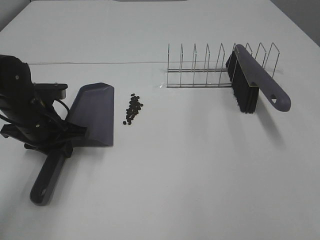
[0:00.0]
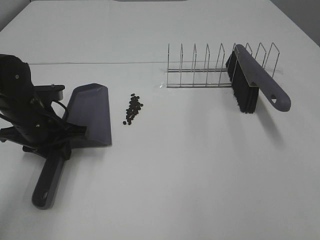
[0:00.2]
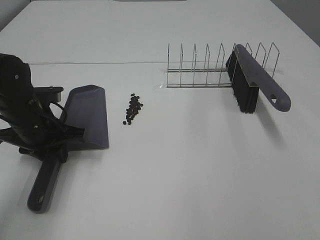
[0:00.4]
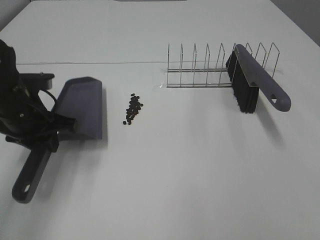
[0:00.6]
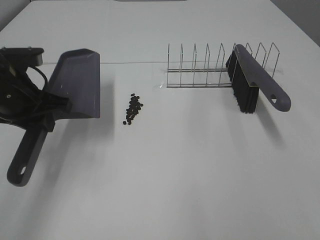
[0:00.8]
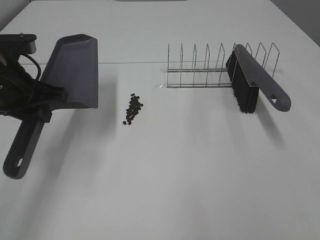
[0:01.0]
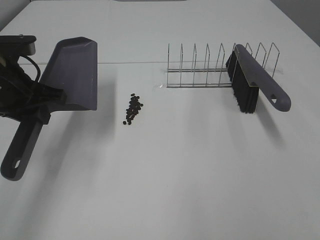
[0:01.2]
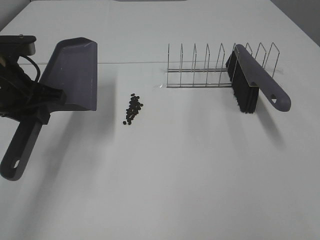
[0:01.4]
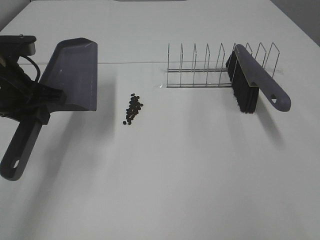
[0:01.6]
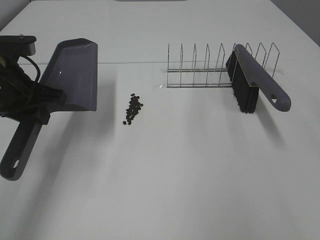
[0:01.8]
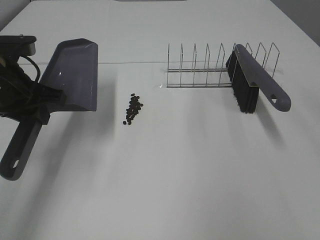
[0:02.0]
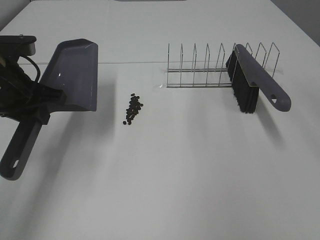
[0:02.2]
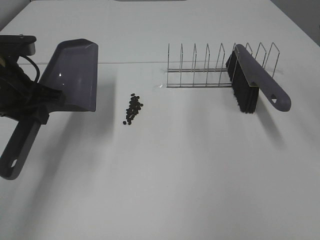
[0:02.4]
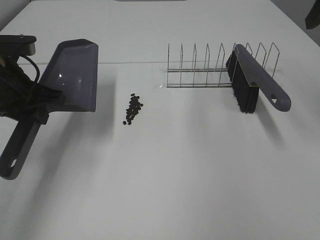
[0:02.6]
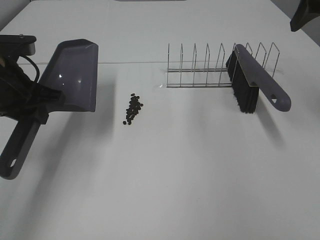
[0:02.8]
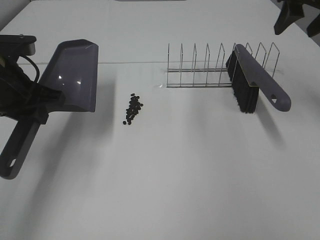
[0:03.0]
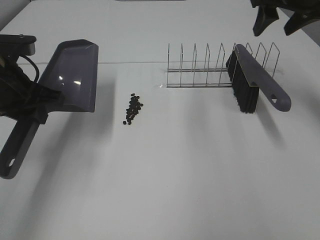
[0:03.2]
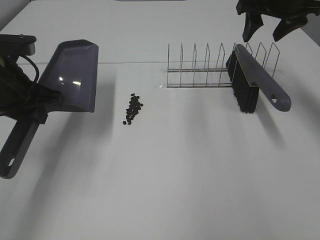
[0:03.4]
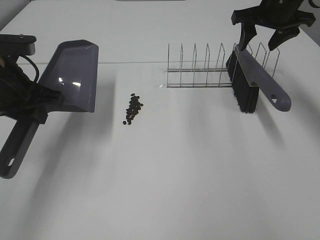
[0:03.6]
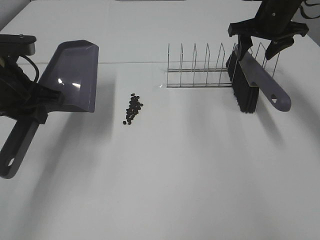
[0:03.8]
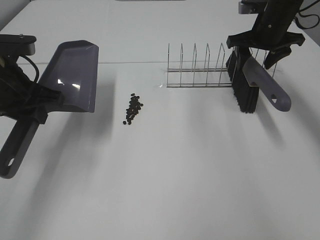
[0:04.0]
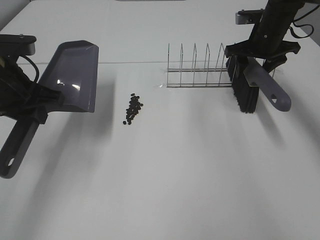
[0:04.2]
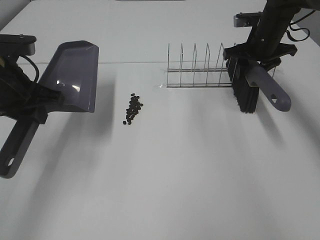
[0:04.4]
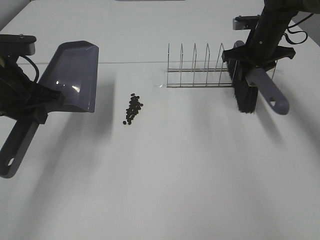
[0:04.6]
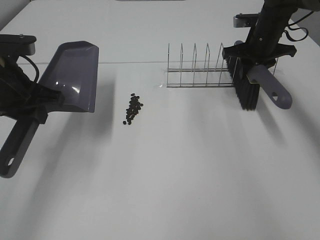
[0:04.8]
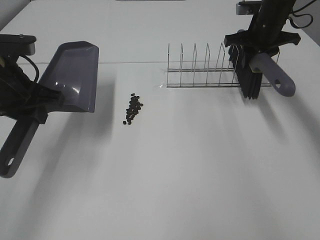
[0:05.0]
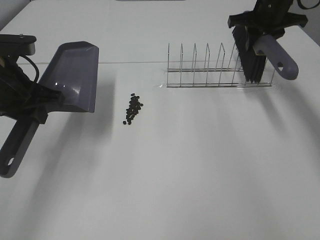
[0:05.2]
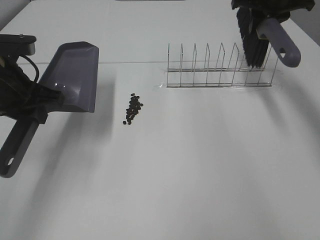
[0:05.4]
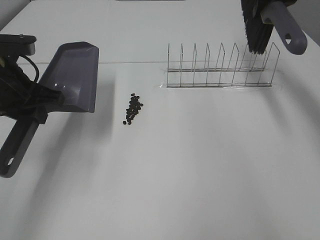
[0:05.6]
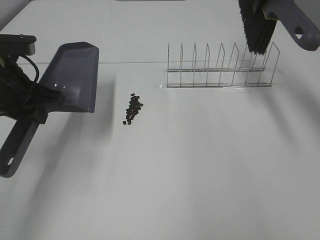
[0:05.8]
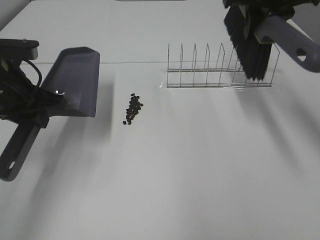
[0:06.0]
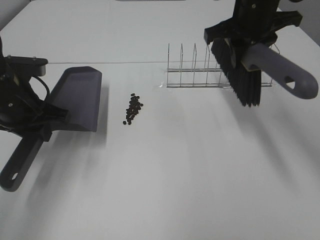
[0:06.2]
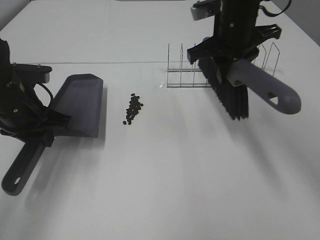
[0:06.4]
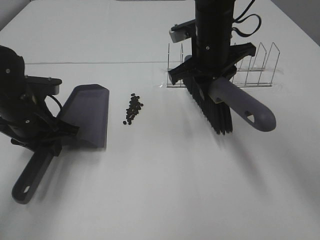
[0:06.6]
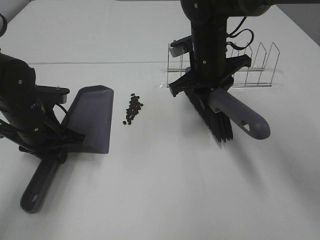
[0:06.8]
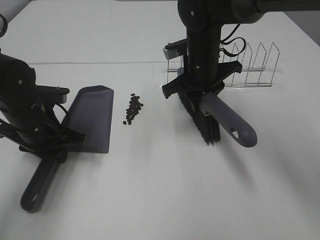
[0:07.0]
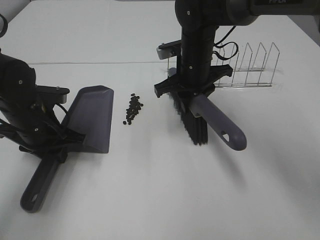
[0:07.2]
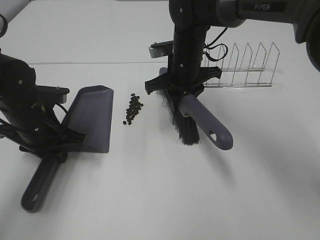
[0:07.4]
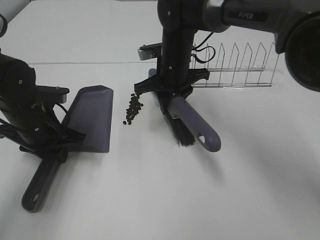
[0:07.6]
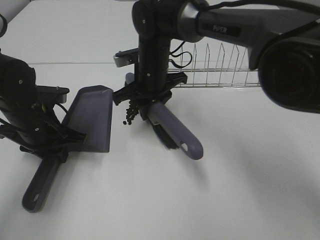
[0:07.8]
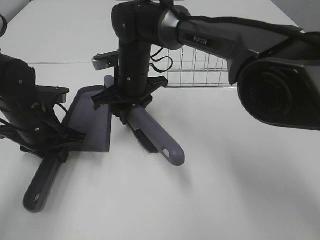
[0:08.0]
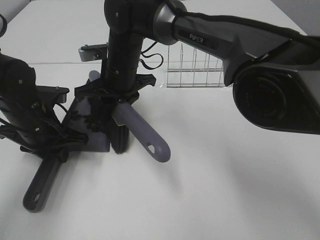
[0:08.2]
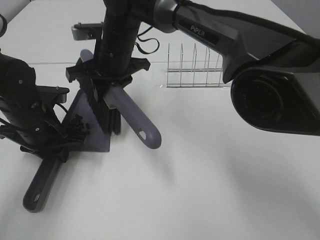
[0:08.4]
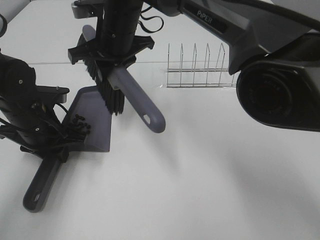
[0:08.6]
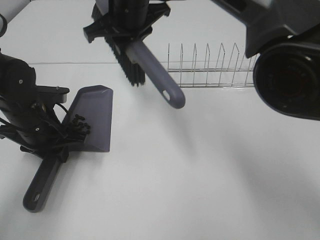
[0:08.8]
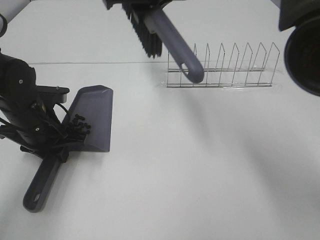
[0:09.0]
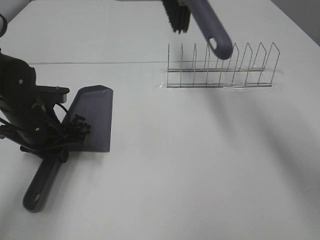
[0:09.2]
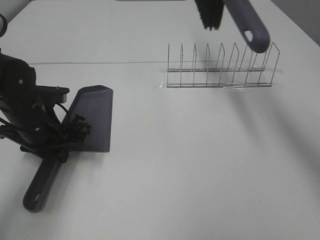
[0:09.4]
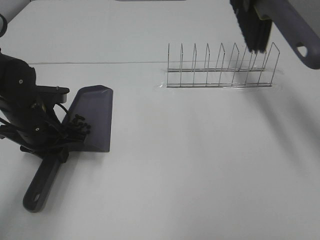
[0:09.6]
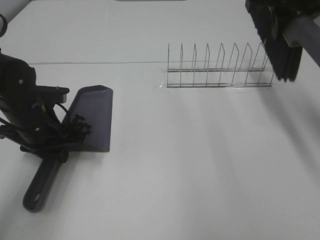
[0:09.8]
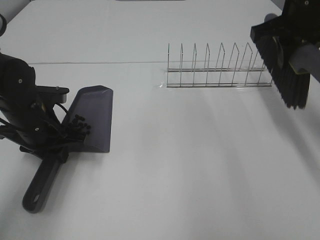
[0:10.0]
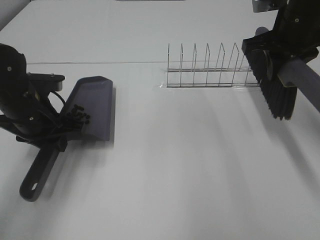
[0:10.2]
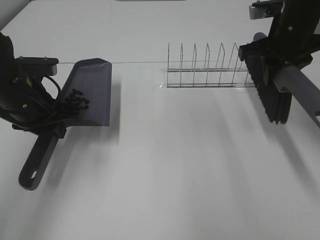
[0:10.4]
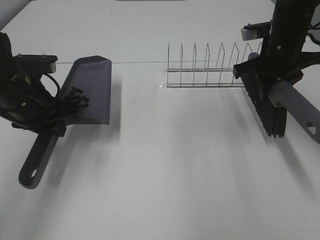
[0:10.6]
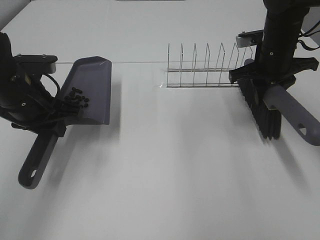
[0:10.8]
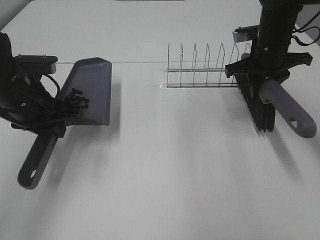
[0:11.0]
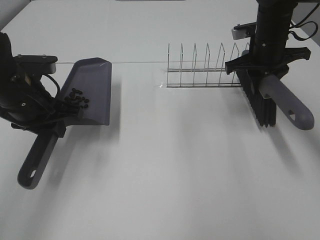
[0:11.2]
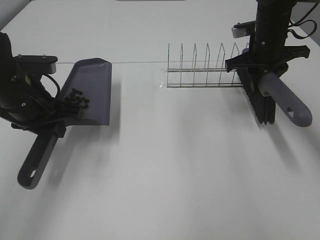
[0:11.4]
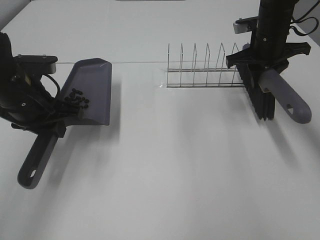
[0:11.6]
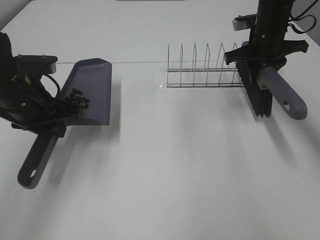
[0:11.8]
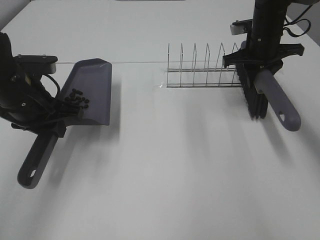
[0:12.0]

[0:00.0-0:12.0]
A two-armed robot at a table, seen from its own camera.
Task of the whole recording: Sweep Coffee Bean.
Step, 0:00.4 to 0:07.0: Left hand: move the dustpan to the left side of the coffee beans.
Step, 0:01.4 to 0:04.8: Right hand:grab the broom.
Step, 0:05.0 to 0:08.4: Right hand:sweep the coffee beans into the dustpan.
0:00.0 to 0:01.6: The right gripper goes about 10 cm forward. The left gripper moves upward, some 10 cm.
0:01.6 to 0:03.0: The right gripper heads forward, covering about 30 cm.
0:03.0 to 0:04.4: The right gripper travels downward and forward by some 15 cm.
0:04.4 to 0:06.0: The right gripper is displaced upward, backward and to the left by approximately 15 cm, and closes its fingers.
0:06.0 to 0:07.6: The right gripper goes about 20 cm to the left and downward; the left gripper travels downward by about 10 cm.
0:07.6 to 0:09.0: The right gripper is displaced upward by about 15 cm.
0:09.0 to 0:10.4: The right gripper is displaced to the right by approximately 20 cm, while the left gripper goes roughly 5 cm upward.
0:10.4 to 0:12.0: The right gripper shifts approximately 10 cm forward and downward.

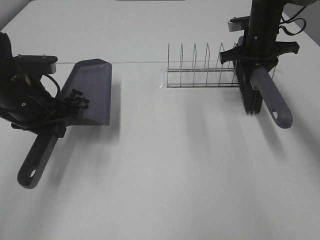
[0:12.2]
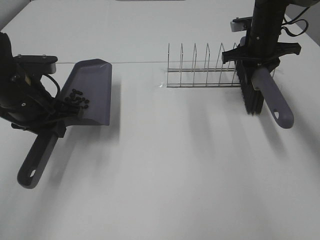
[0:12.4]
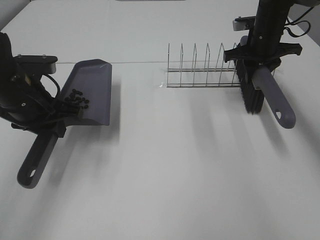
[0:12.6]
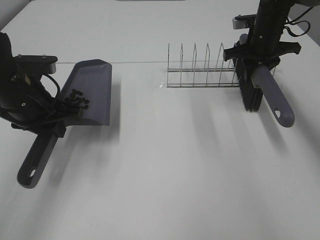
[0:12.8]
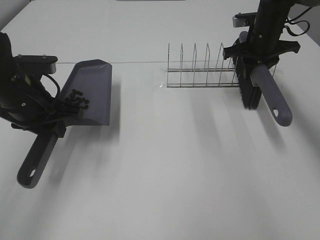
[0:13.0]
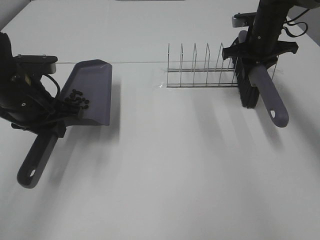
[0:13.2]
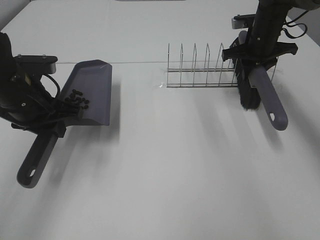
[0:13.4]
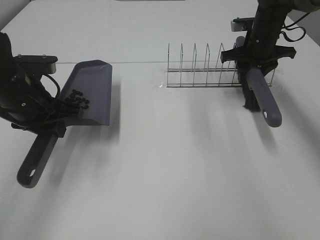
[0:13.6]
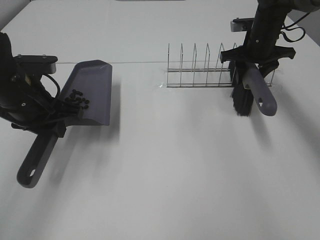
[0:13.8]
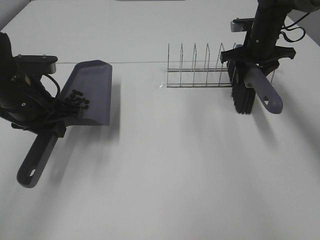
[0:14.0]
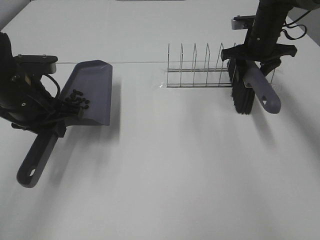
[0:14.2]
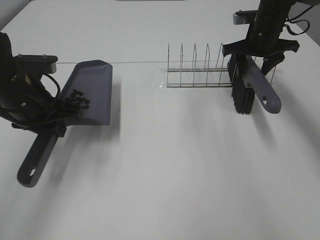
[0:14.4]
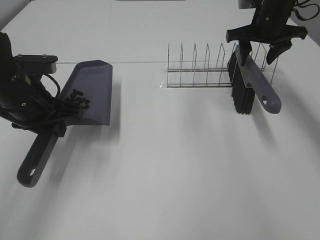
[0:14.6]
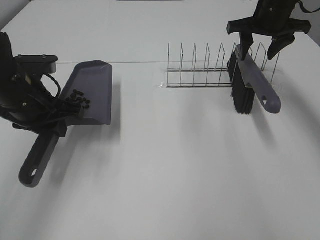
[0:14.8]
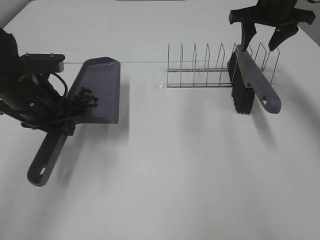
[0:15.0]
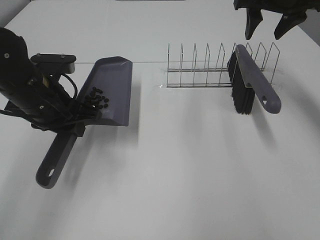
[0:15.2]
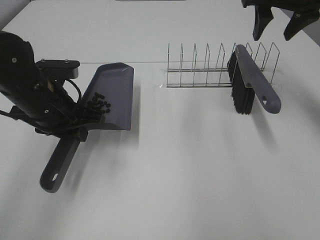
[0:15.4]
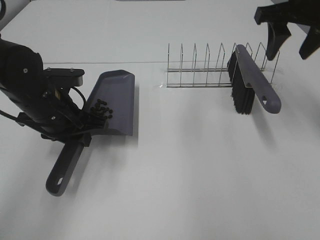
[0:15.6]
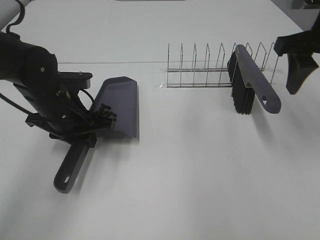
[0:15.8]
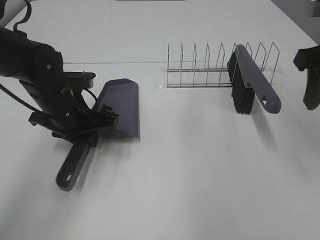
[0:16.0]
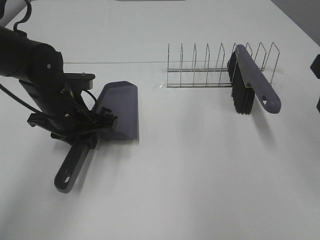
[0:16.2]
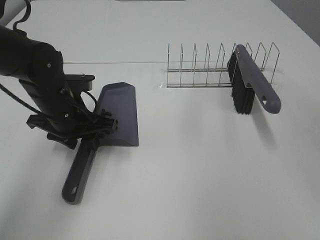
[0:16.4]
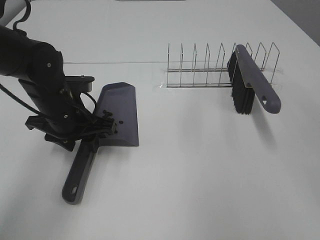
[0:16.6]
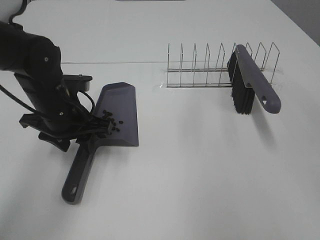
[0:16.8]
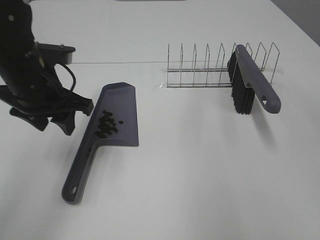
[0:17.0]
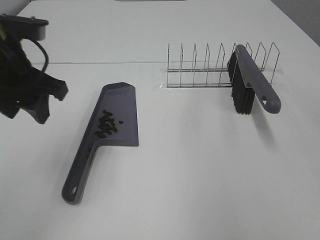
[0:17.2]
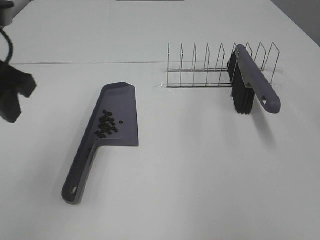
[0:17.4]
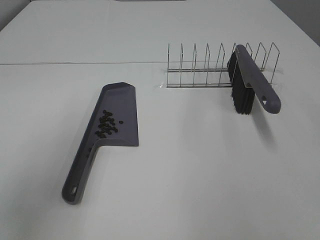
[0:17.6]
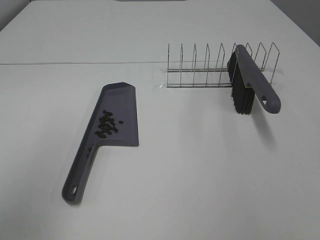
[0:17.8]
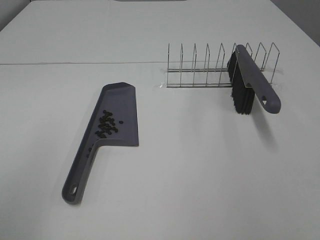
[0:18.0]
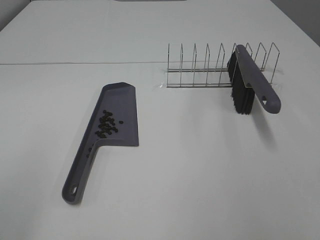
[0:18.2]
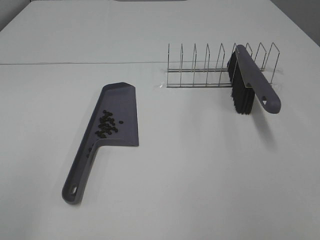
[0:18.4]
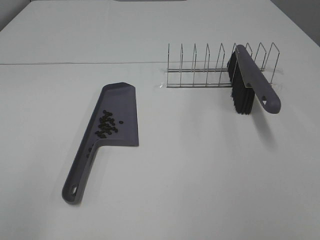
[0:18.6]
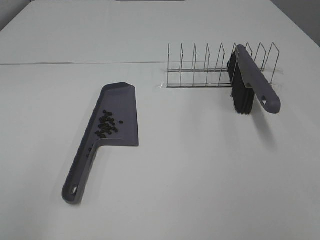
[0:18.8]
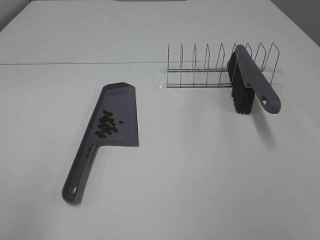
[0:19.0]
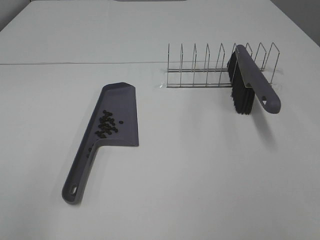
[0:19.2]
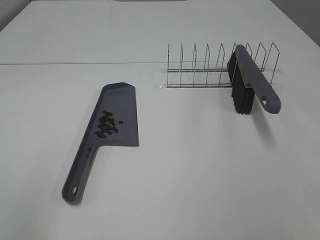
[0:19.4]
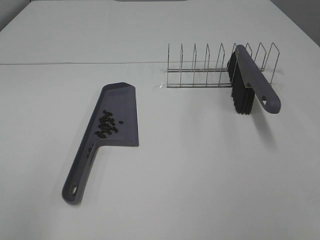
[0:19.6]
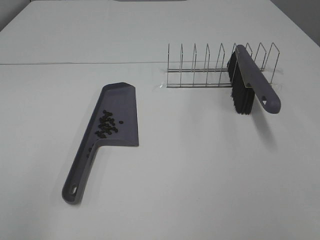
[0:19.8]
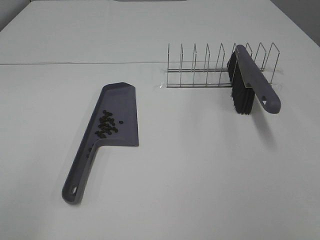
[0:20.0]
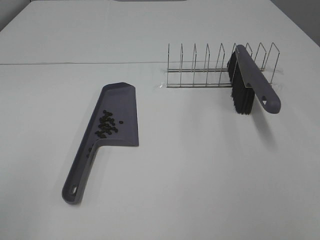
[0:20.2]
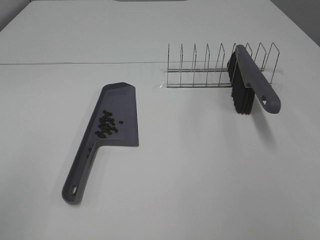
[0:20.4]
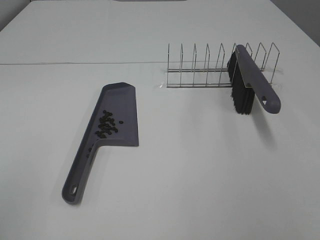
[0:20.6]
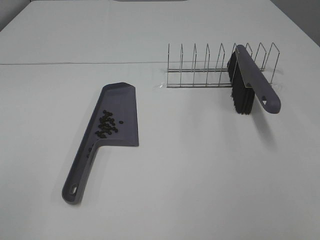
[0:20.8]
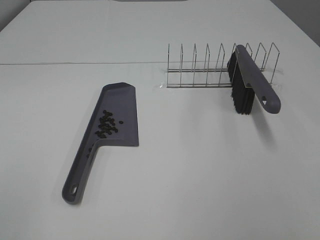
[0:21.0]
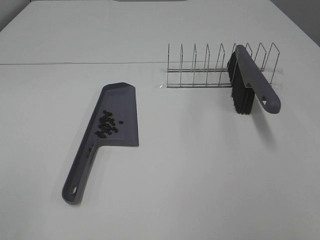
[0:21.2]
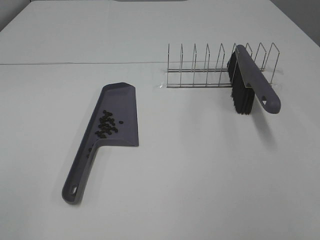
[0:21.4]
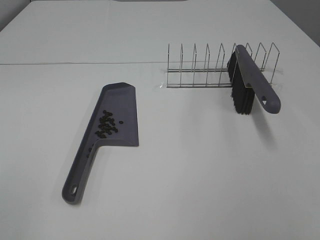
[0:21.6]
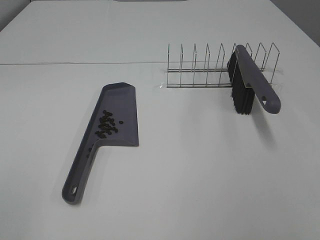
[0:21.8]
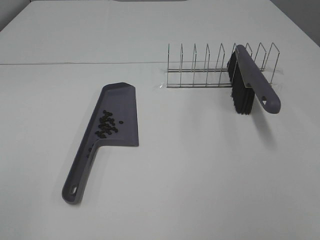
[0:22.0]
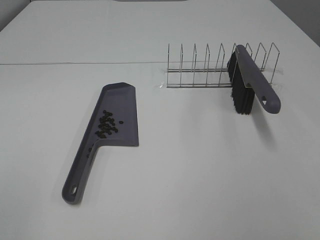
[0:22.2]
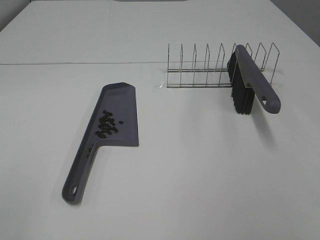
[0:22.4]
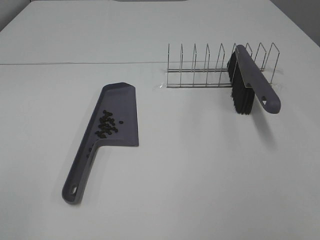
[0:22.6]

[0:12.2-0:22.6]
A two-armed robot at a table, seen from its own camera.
Task of the whole recording: Sweep Coffee Bean.
Step, 0:12.2 to 0:14.6: Right hand:place the broom on the rack.
Step, 0:14.8 to 0:16.8: Left hand:place the dustpan on the table.
0:12.2 to 0:13.6: There are only small adjustments of the grippers.
0:13.6 to 0:15.2: The right gripper travels upward by about 15 cm.
0:15.2 to 0:16.6: The right gripper heads backward, covering approximately 25 cm. The left gripper ends up about 5 cm from where it was, and opens its fingers.
0:16.6 to 0:18.2: The left gripper moves backward, upward and to the left, approximately 35 cm.
0:21.2 to 0:22.6: The two grippers keep their place.
